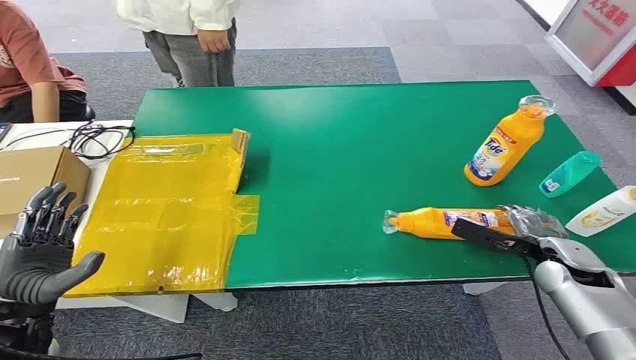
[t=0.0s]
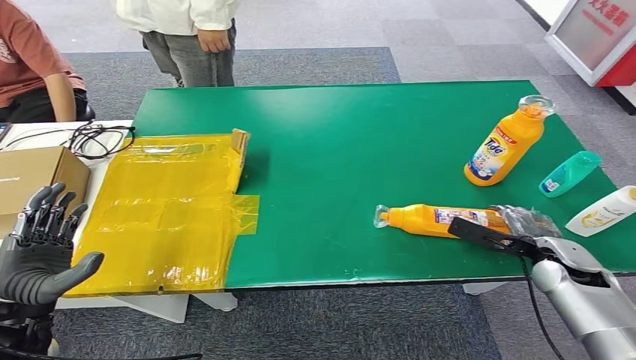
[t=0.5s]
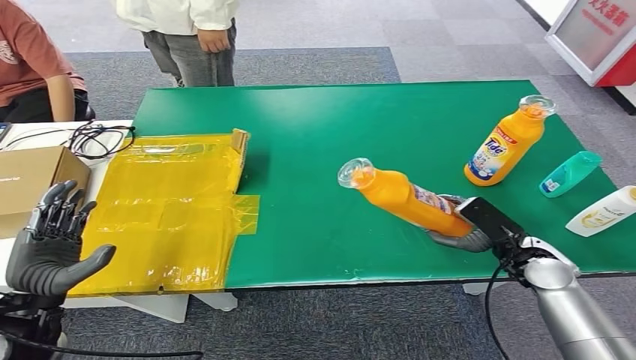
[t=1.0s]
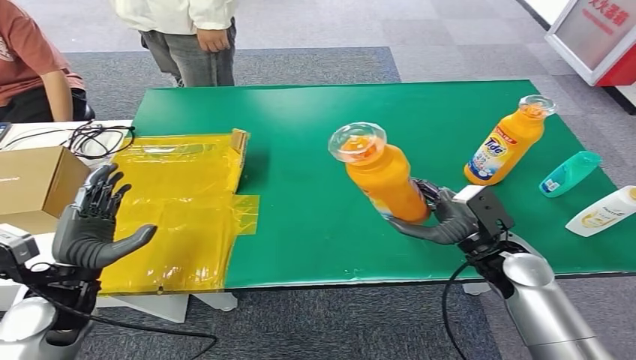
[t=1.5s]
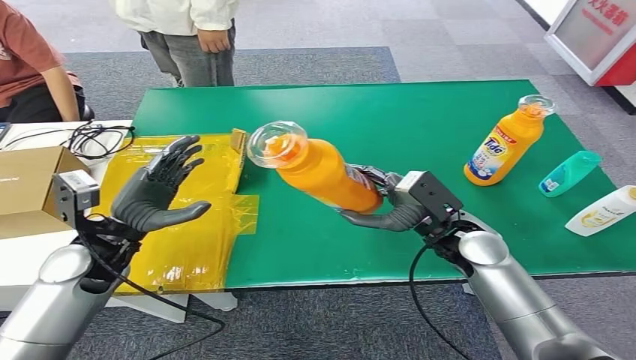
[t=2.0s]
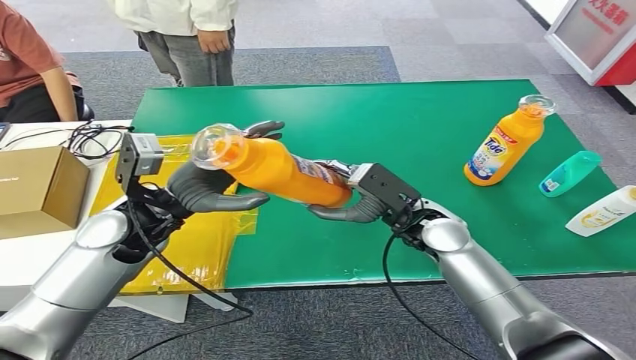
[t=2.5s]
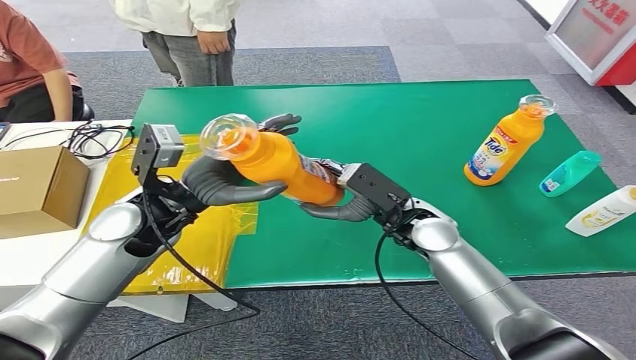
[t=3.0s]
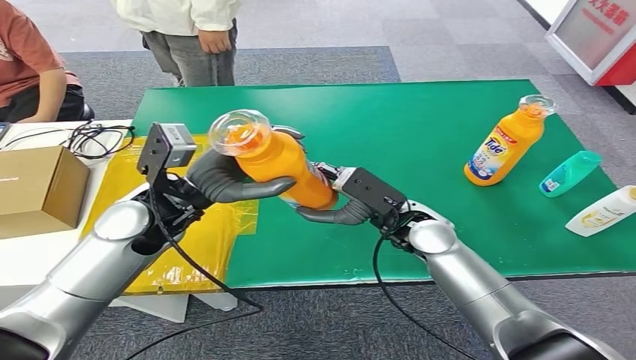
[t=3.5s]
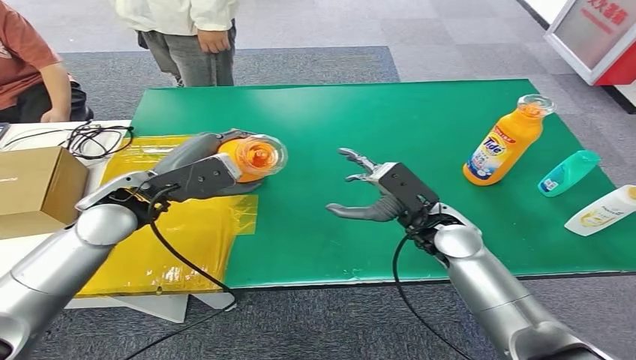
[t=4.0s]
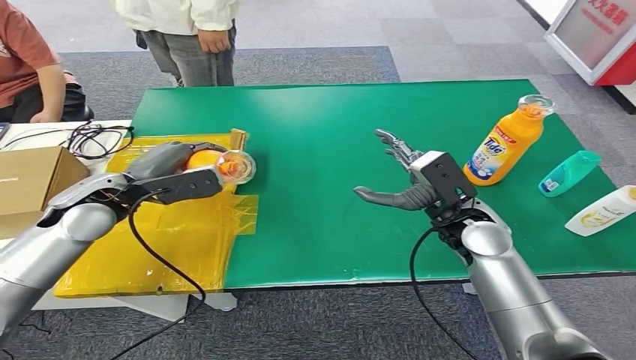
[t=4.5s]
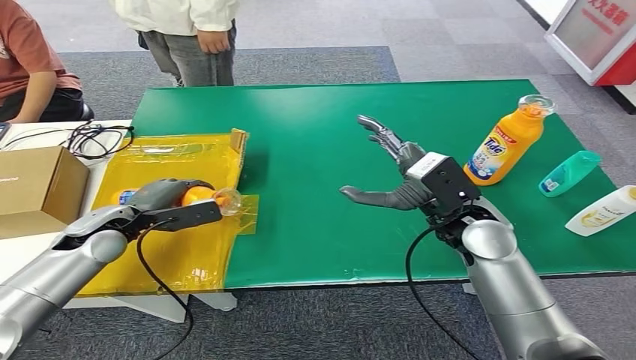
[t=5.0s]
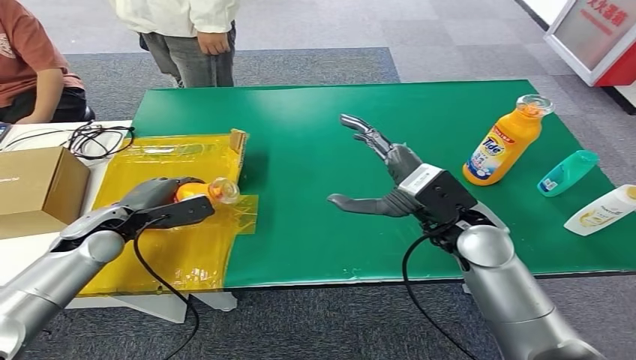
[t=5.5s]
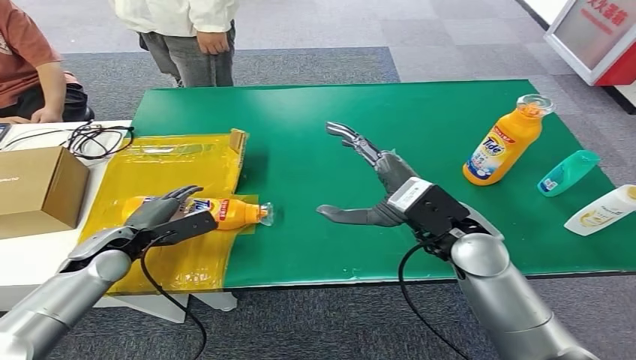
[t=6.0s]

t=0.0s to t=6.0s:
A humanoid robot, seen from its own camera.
Step, t=0.0s to t=1.0s: Pick up the bottle from the table.
Step, t=1.5s to t=6.0s: Turn the bottle to the front side.
